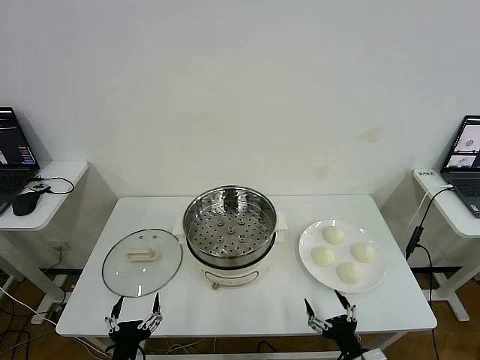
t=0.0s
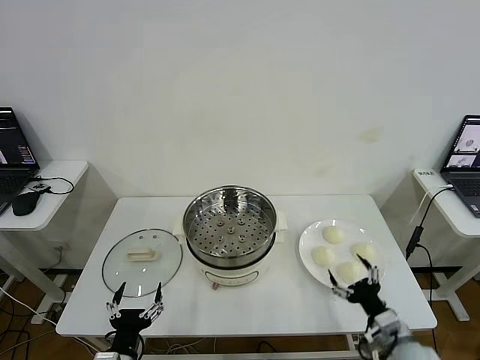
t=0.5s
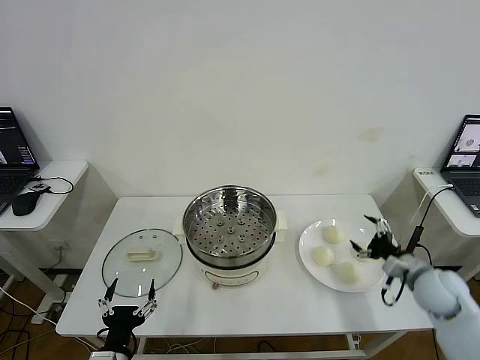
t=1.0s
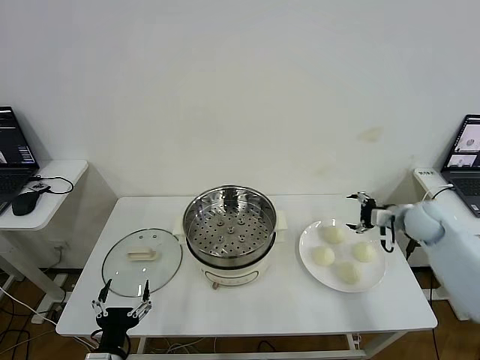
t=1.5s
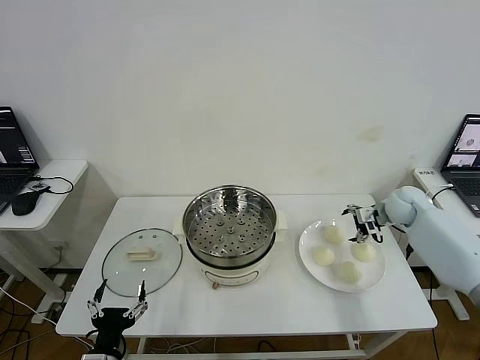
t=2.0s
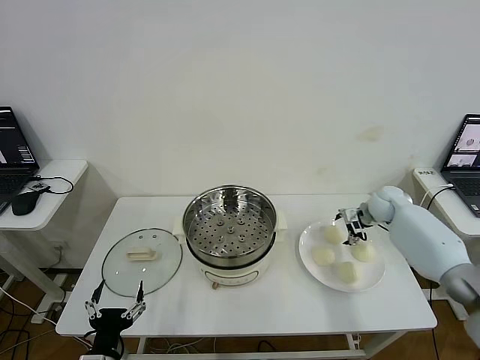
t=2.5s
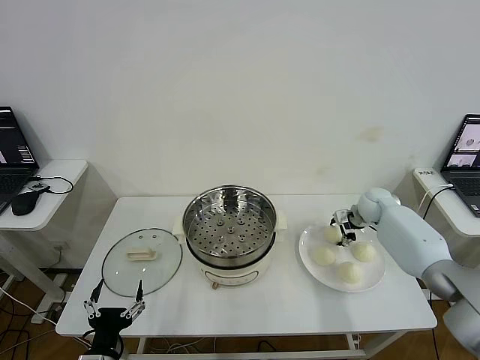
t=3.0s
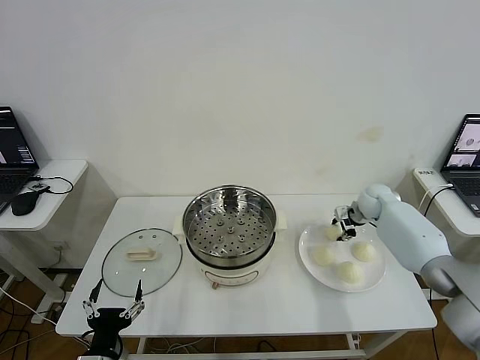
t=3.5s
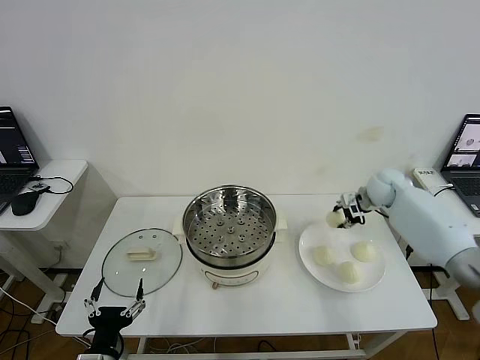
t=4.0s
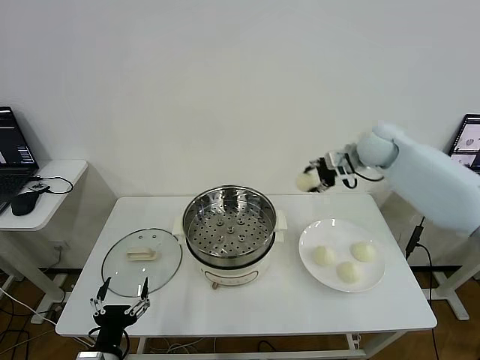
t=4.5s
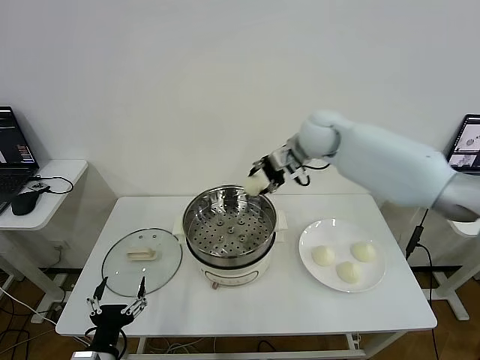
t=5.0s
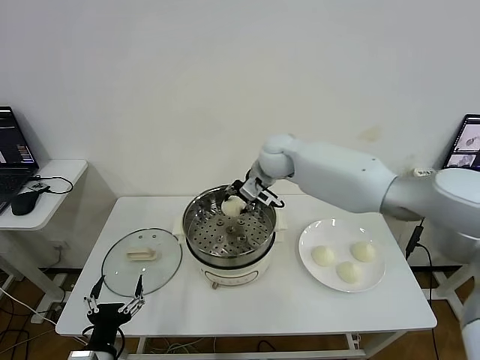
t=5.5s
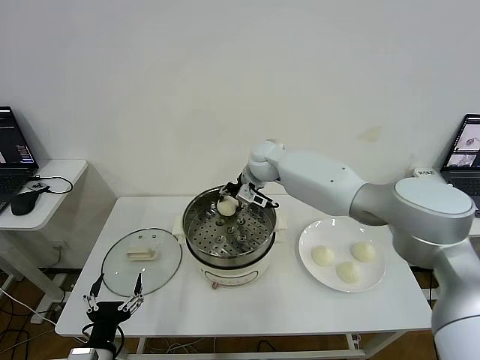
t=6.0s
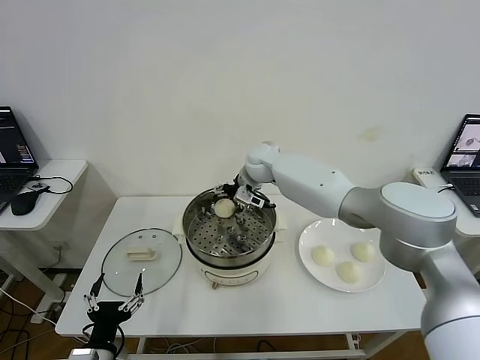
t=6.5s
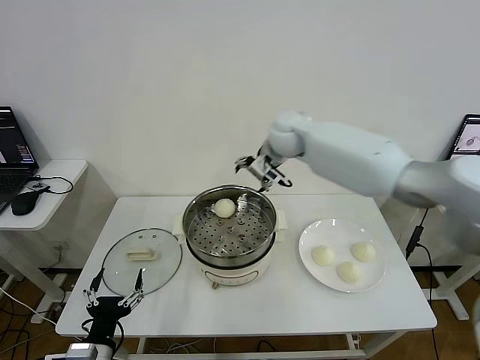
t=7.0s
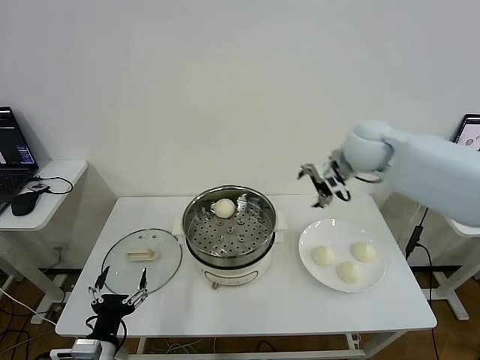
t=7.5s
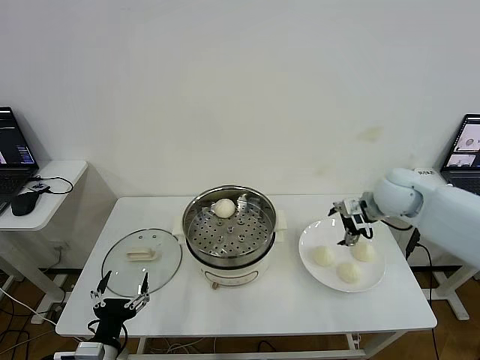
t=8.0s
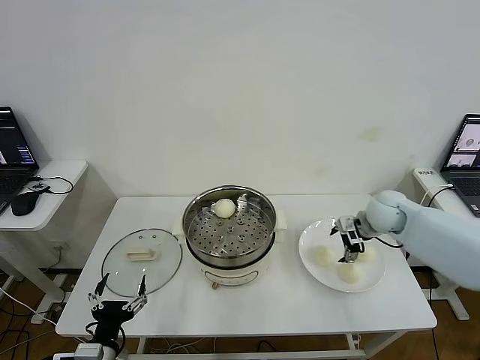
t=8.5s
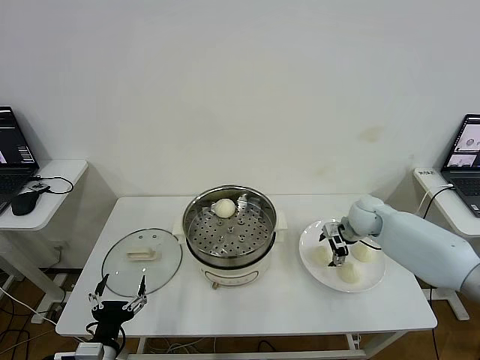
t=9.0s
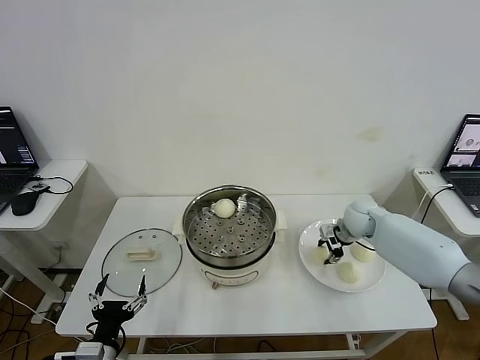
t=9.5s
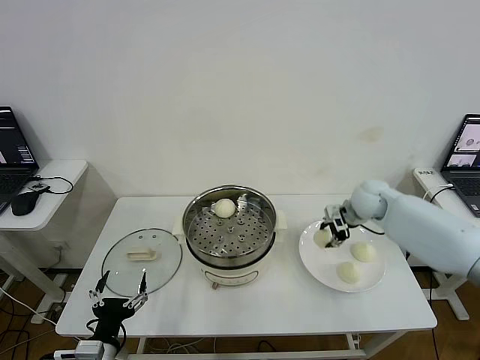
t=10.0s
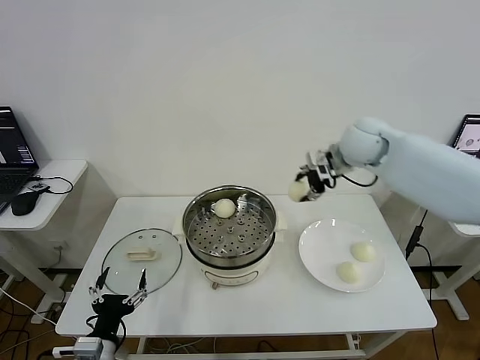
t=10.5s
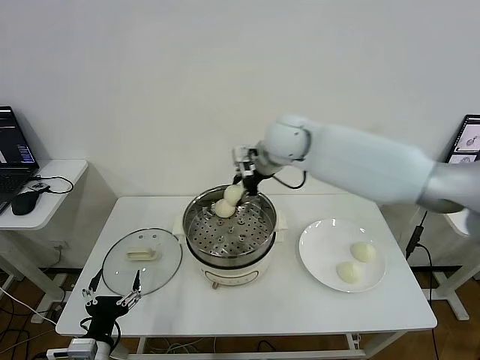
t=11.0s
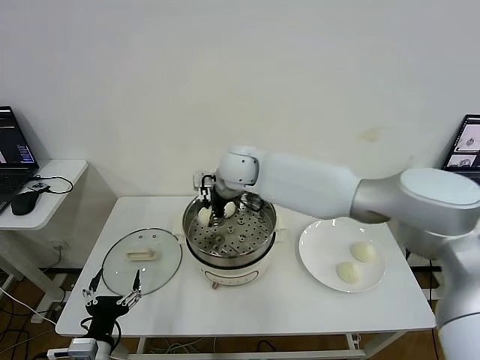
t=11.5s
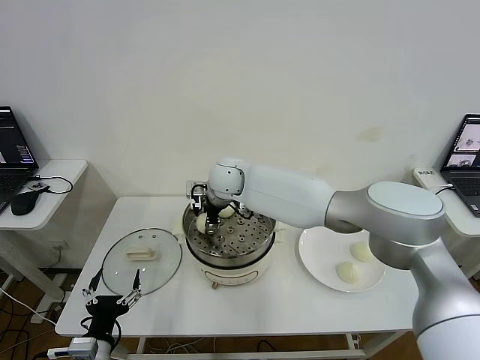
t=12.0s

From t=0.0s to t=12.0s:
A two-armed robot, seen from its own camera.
Step, from t=0.0s to t=3.5s: Grasp the baozi in the plate with right gripper.
Step, from t=4.0s to t=6.5s: Place the baozi on the steamer with right gripper.
Step, from t=7.0s to t=9.5s: Grasp the baozi in the plate with right gripper.
From t=2.0s to t=4.0s: The right gripper moves some 5 cm, and closes.
From t=4.0s to t=6.0s: The right gripper is displaced to the left by approximately 30 cm.
From t=6.0s to t=8.0s: The right gripper moves to the right and backward, about 30 cm, and opens.
From t=8.0s to t=10.0s: The right gripper is displaced forward by approximately 5 cm, and closes up.
From t=10.0s to t=12.0s: The right gripper goes roughly 35 cm to the left, and opens.

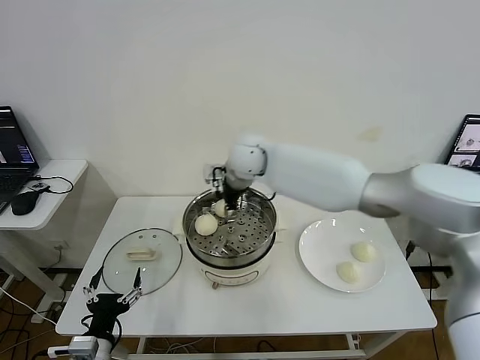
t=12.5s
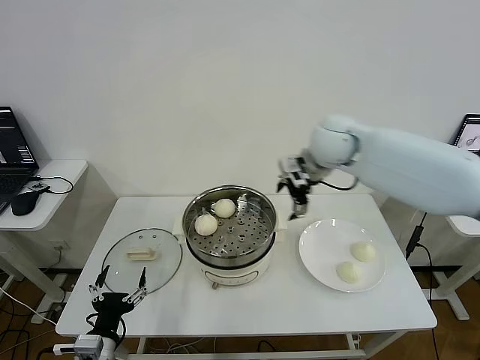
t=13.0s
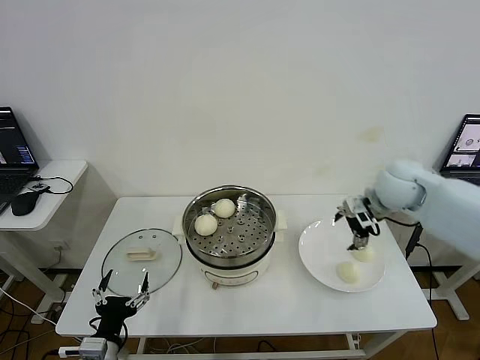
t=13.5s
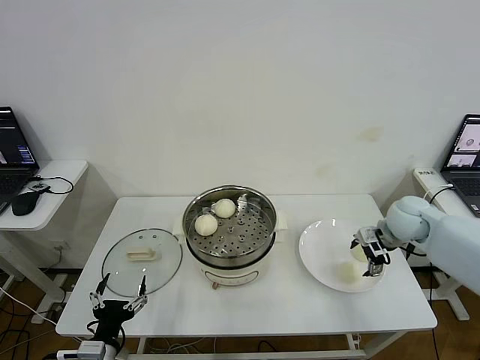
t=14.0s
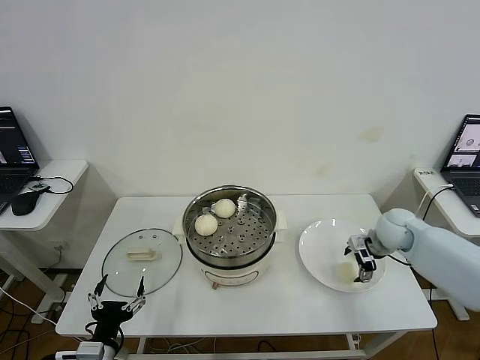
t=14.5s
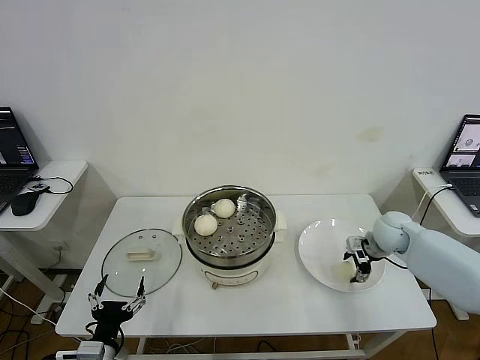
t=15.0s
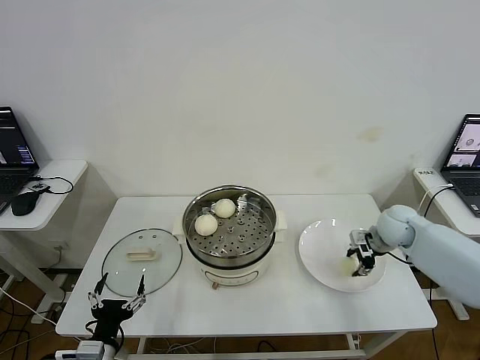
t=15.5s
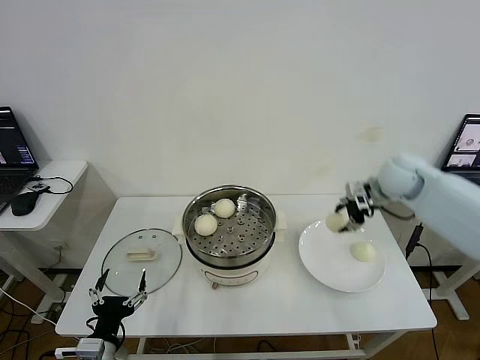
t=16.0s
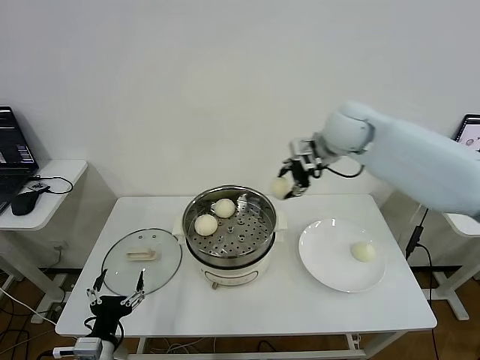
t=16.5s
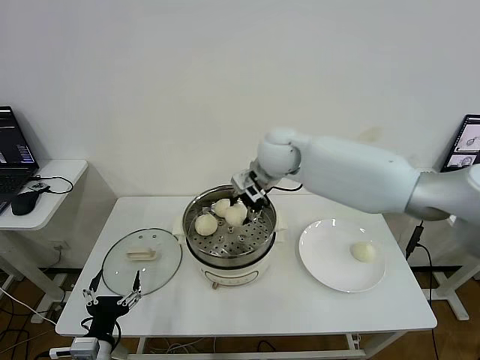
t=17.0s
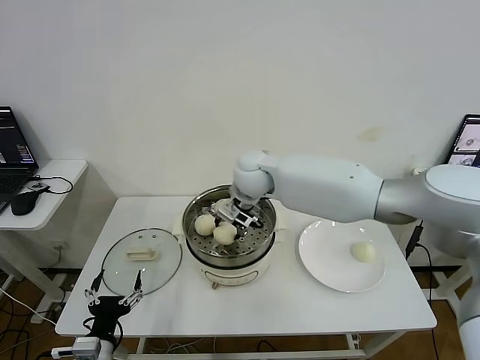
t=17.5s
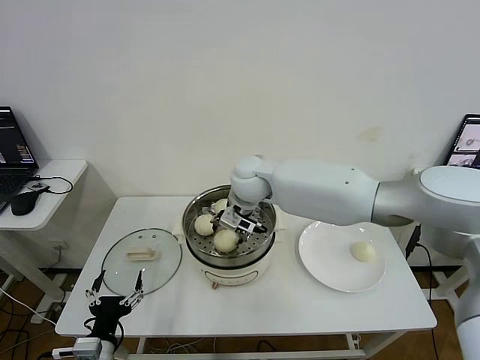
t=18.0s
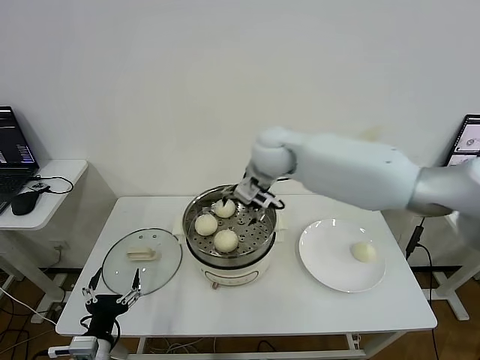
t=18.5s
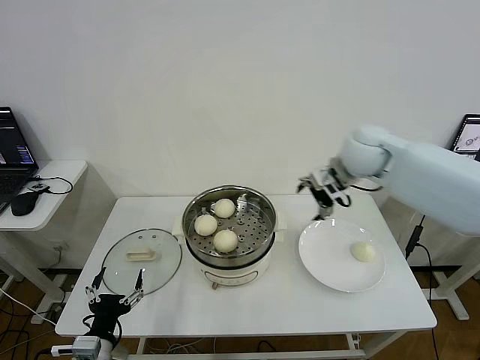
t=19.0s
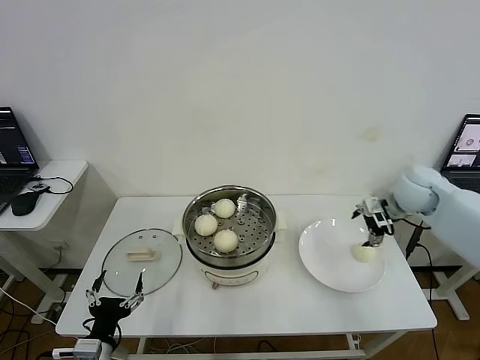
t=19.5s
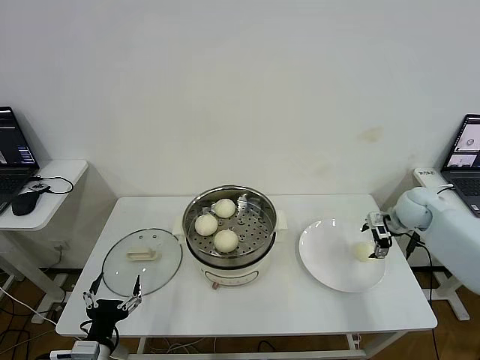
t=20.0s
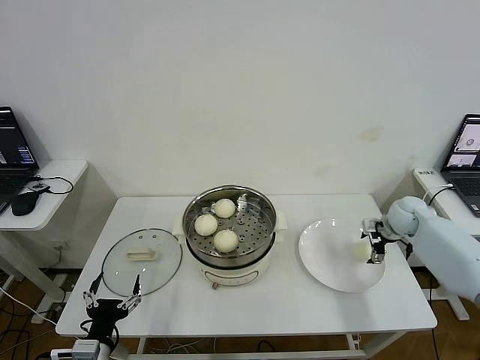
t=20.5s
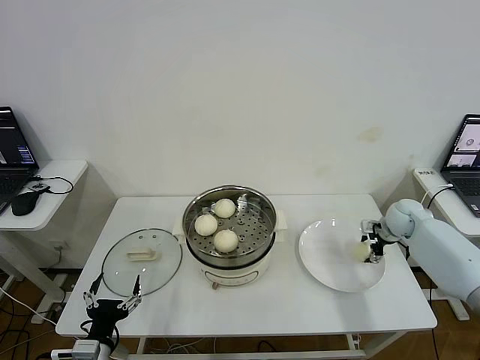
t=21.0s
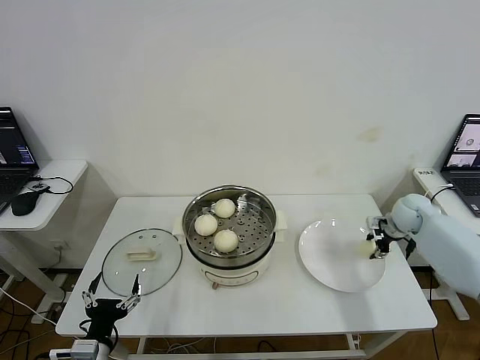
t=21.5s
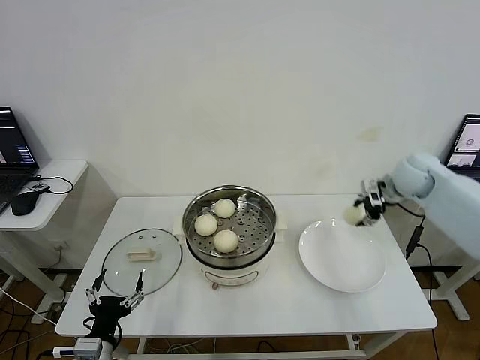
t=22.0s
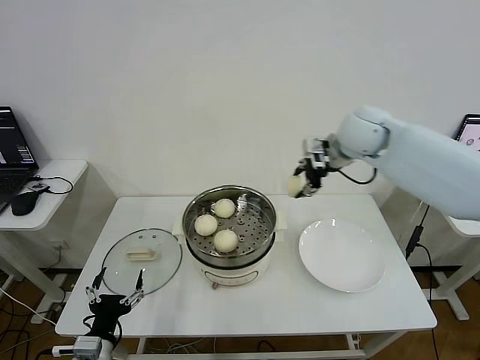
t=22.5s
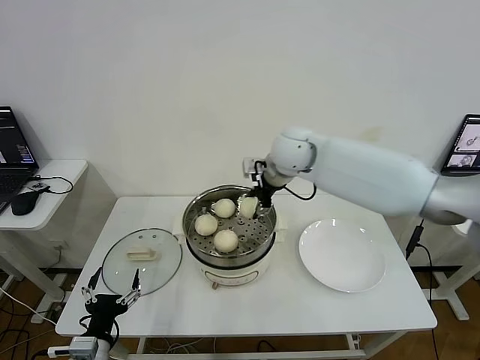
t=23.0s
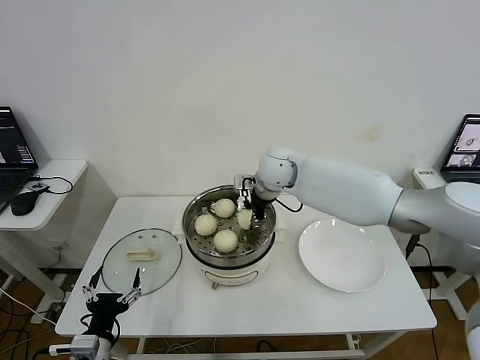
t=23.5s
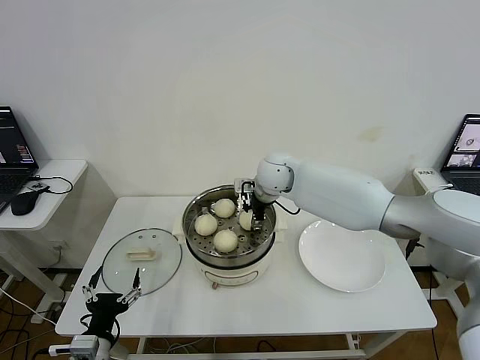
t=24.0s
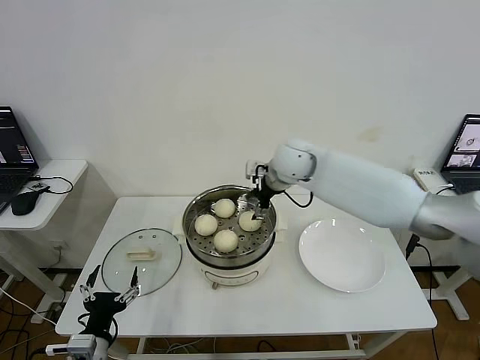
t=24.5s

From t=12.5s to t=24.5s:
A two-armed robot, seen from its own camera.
Step, from t=12.5s to t=15.0s: Grasp the baozi in the plate with right gripper.
Step, from t=15.5s to t=18.0s: Place the baozi on the steamer with right gripper.
Step, from t=18.5s to t=21.0s: Grasp the baozi in the plate with right gripper.
Step, from t=21.5s to t=24.0s: Place the baozi on the steamer with right gripper.
From t=12.5s to t=14.5s: The right gripper moves to the right and downward, roughly 40 cm.
From t=14.5s to t=16.5s: The right gripper is displaced upward and to the left by roughly 30 cm, and closes its fingers.
From t=16.5s to t=18.5s: The right gripper heads to the left, covering some 10 cm, and opens its fingers.
From t=18.5s to t=20.5s: The right gripper shifts approximately 40 cm to the right and downward.
From t=20.5s to t=22.5s: The right gripper heads upward and to the left, covering about 30 cm, and closes up.
From t=22.5s to t=24.5s: The right gripper travels to the left and downward by roughly 15 cm, and opens its fingers.

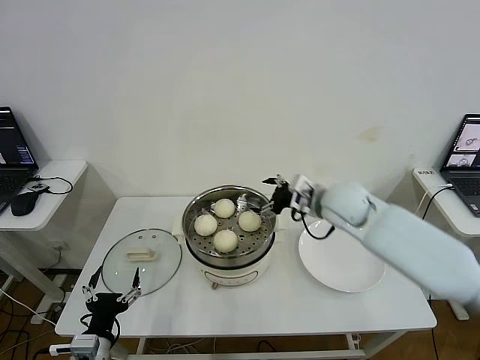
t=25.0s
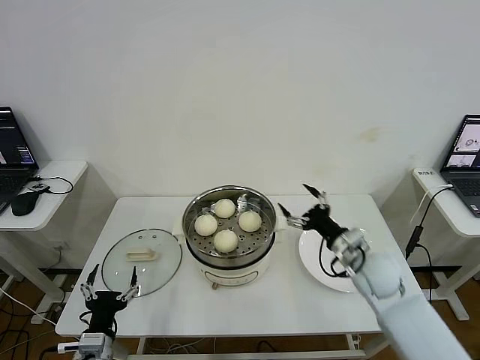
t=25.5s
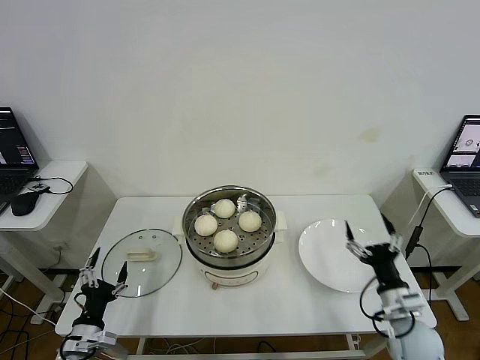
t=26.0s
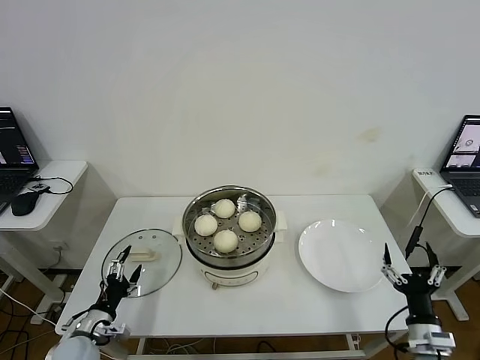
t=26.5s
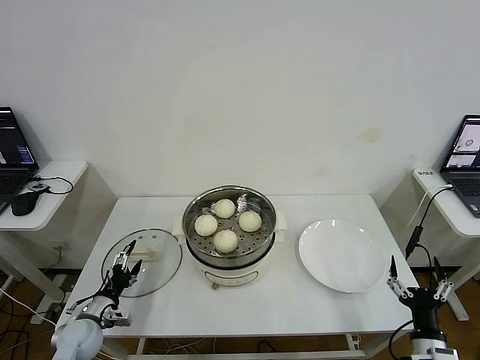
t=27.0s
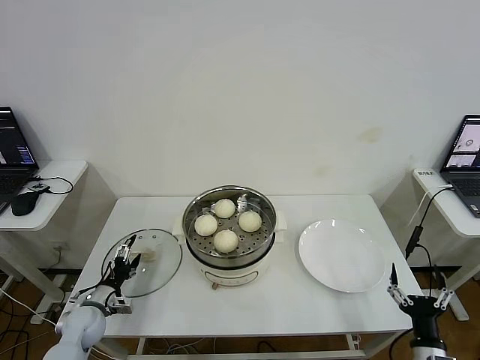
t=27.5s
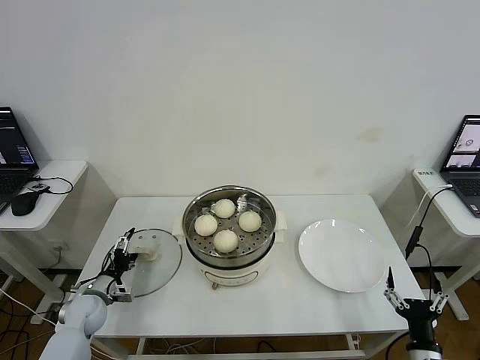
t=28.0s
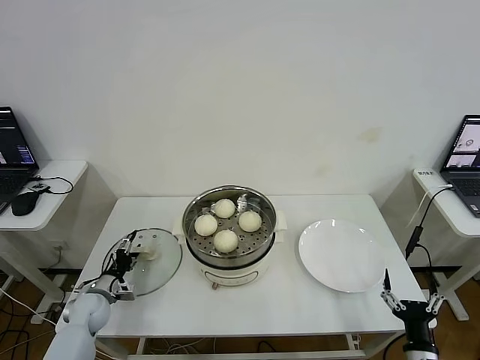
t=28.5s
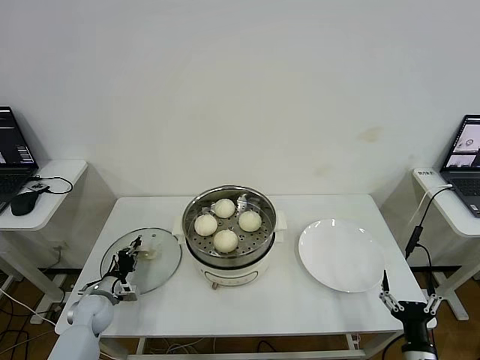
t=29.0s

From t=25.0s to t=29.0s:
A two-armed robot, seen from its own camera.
From t=25.0s to t=27.0s: The right gripper travels backward, downward and to the right by approximately 40 cm. Meanwhile the left gripper goes some 15 cm forward, to the left and downward.
From t=27.0s to t=29.0s: The left gripper goes roughly 10 cm forward, and closes its fingers.
